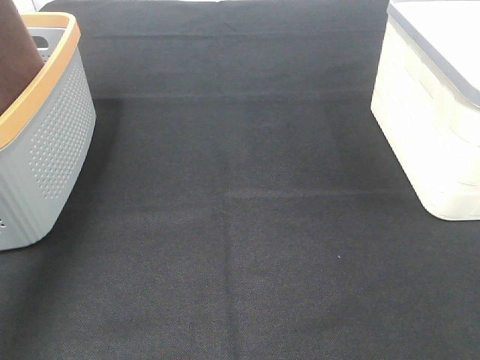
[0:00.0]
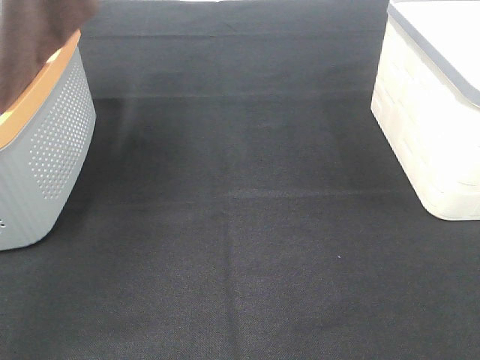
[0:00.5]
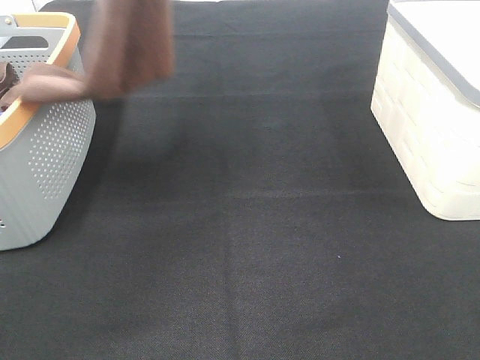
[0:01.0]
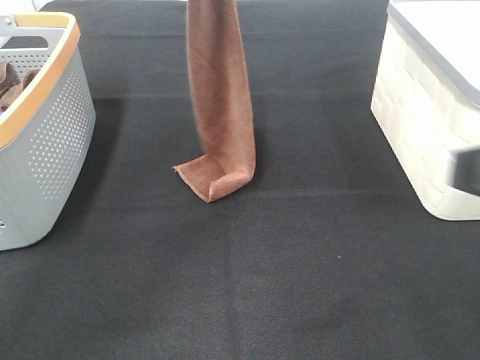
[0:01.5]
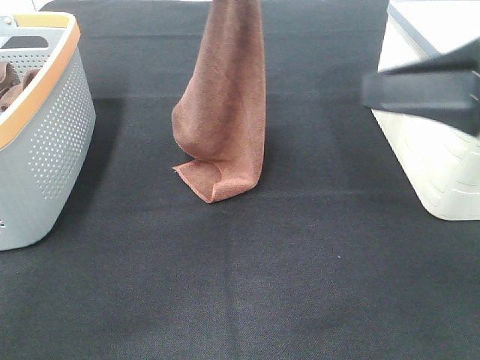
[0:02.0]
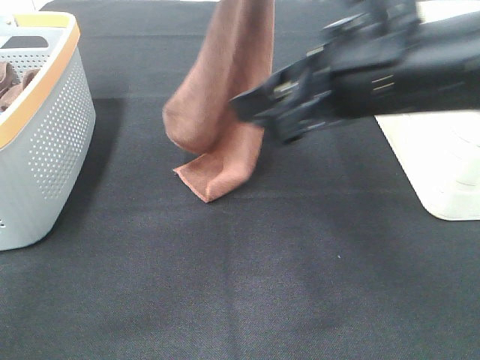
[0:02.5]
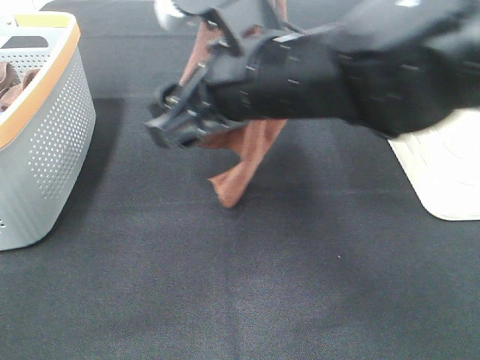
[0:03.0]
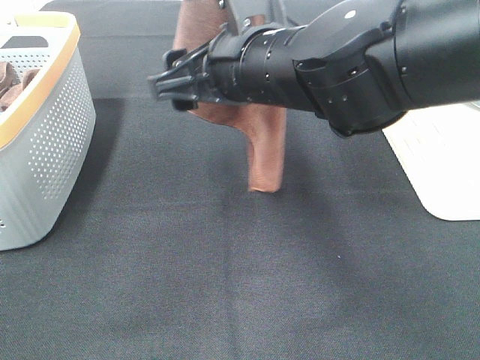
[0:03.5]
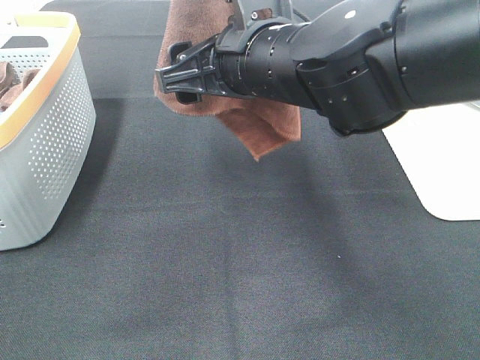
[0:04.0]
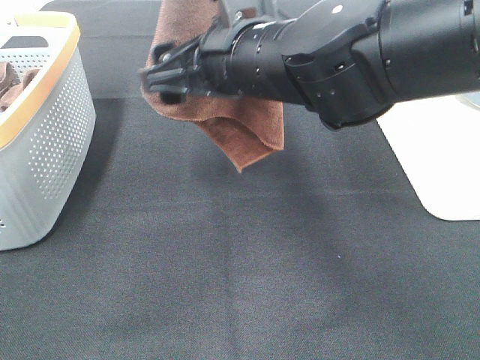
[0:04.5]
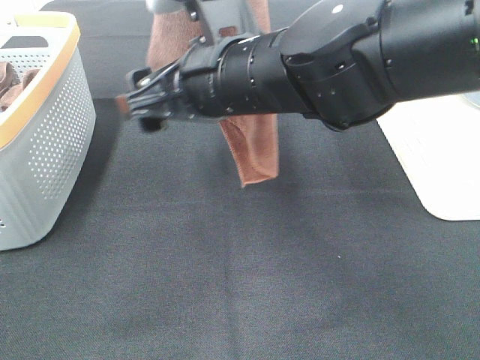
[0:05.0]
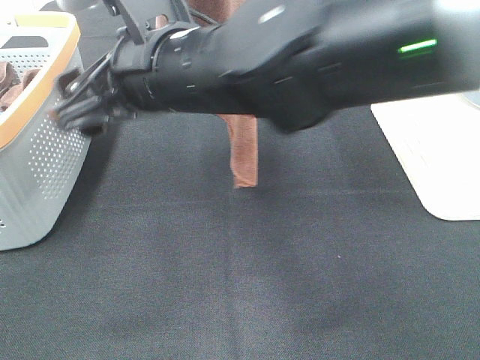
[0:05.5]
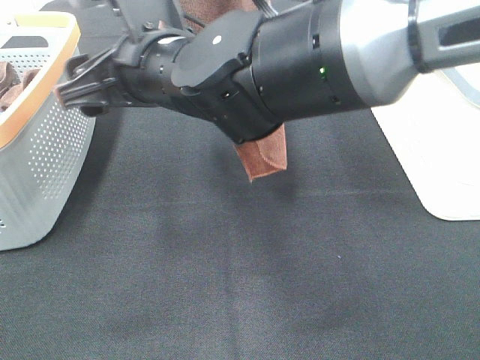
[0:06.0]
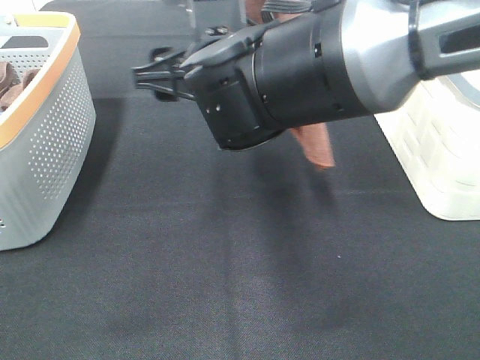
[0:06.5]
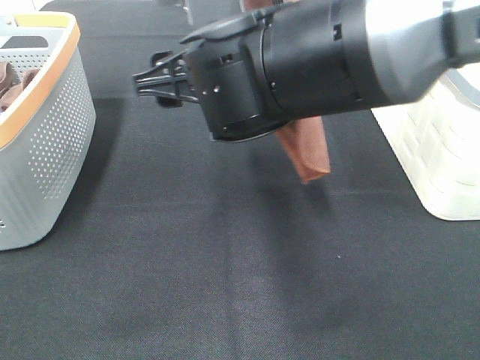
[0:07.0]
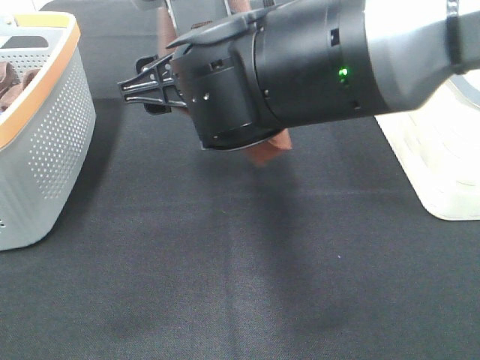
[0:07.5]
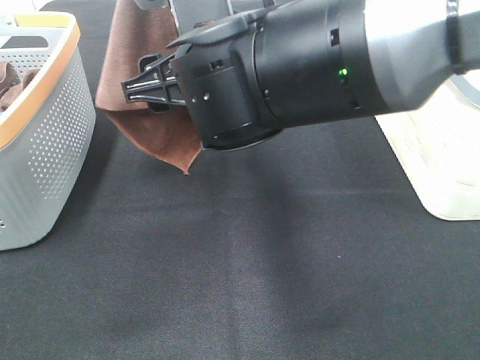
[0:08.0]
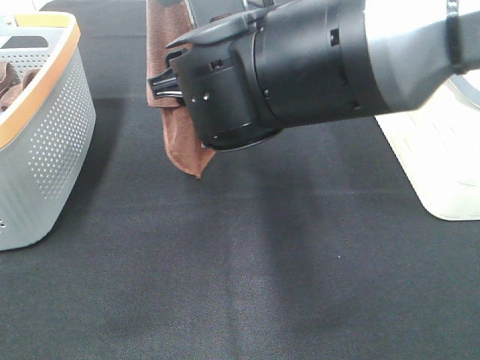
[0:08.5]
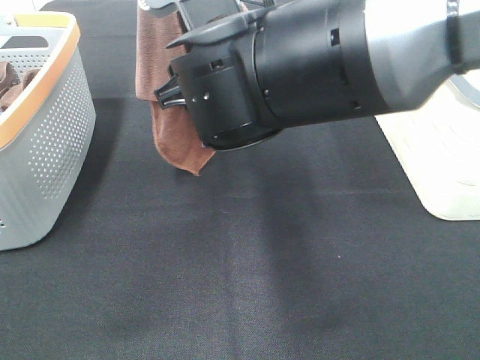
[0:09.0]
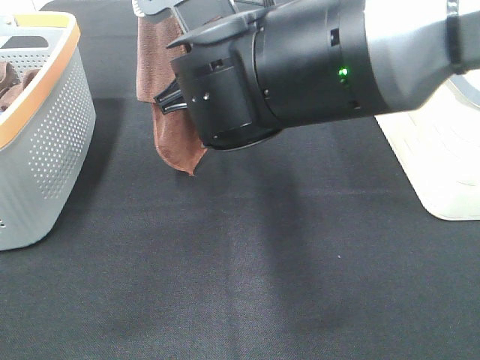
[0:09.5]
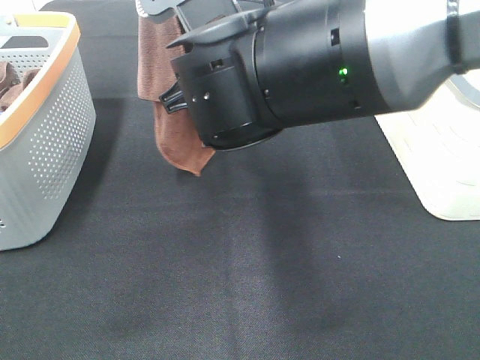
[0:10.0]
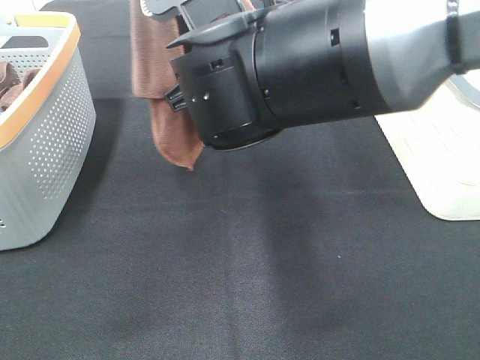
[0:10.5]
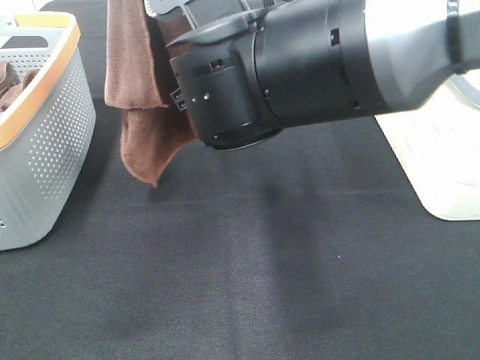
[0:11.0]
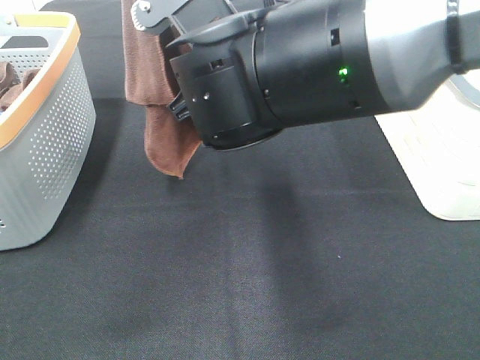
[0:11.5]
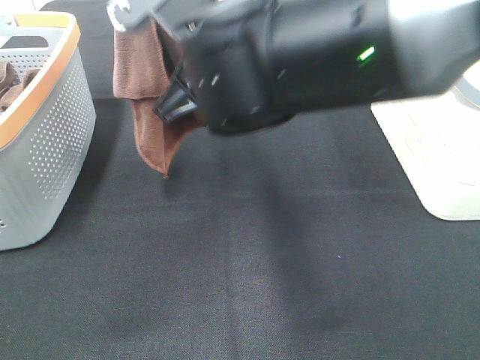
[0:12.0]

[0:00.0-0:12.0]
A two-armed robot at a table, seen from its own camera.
Task of the whole recording: Remove the towel and place it.
Step, 0:00.0 to 0:10.0: Right hand: grab a corner of the brown towel and straighten it.
0:00.0 to 0:02.0: The right gripper is displaced forward by approximately 20 cm. The left gripper moves to the right and downward, about 25 cm.
0:02.0 to 0:04.0: The right gripper heads to the left and forward, covering roughly 20 cm. The left gripper travels upward and backward by about 10 cm.
0:04.0 to 0:06.0: The right gripper goes approximately 10 cm to the left.
0:08.0 to 0:10.0: The grippers make only small movements.
0:10.0 to 0:12.0: The right gripper closes its fingers.

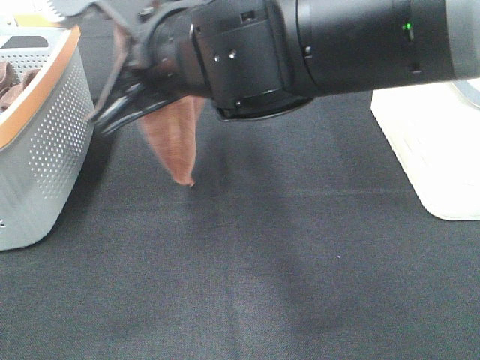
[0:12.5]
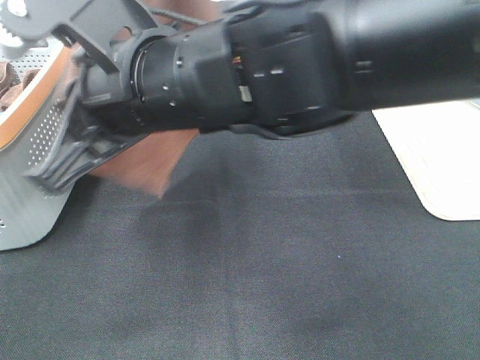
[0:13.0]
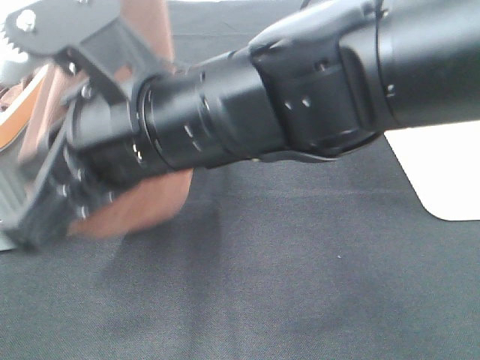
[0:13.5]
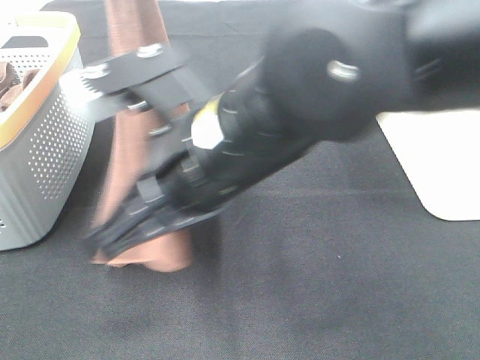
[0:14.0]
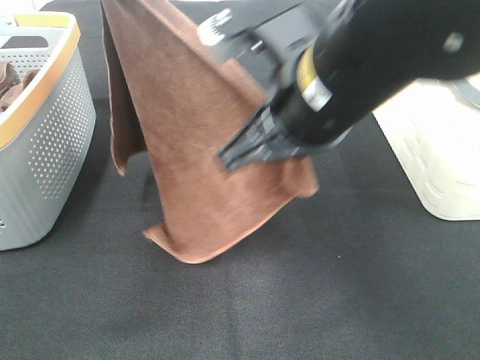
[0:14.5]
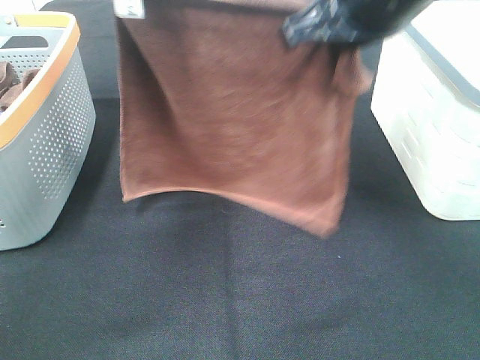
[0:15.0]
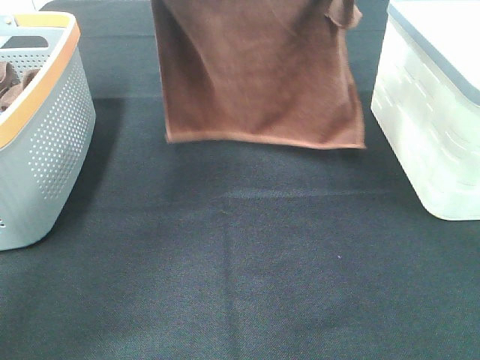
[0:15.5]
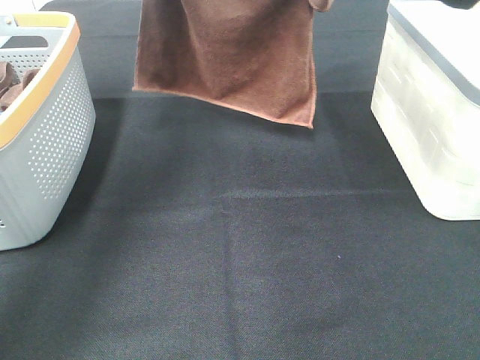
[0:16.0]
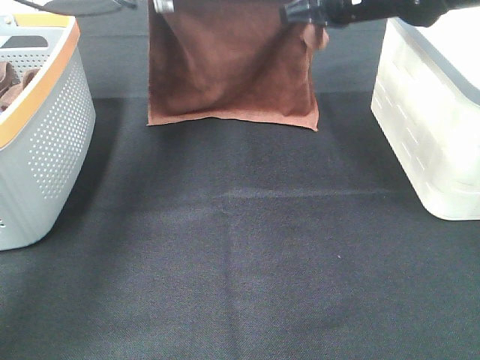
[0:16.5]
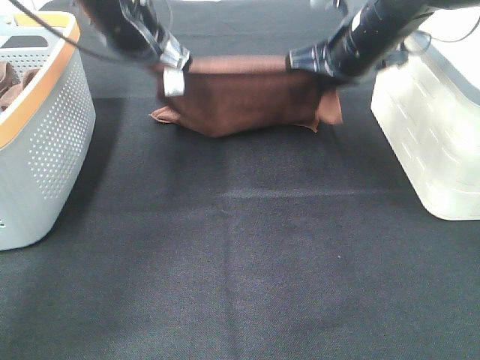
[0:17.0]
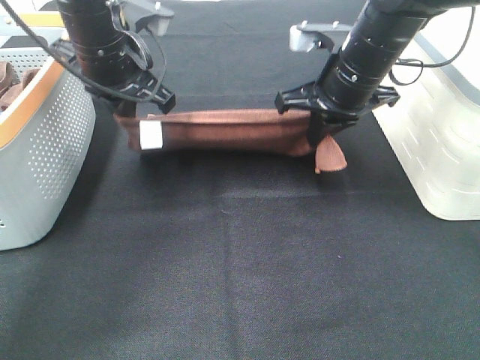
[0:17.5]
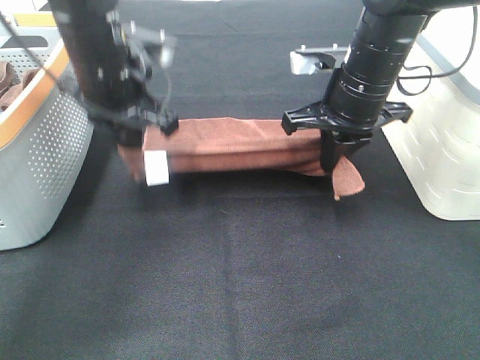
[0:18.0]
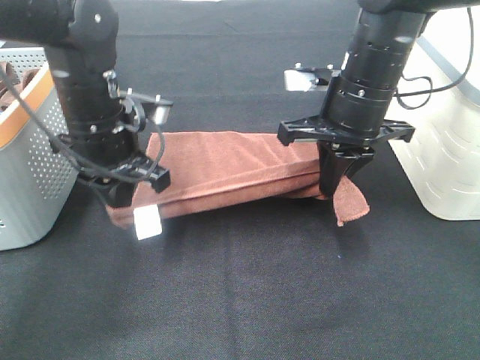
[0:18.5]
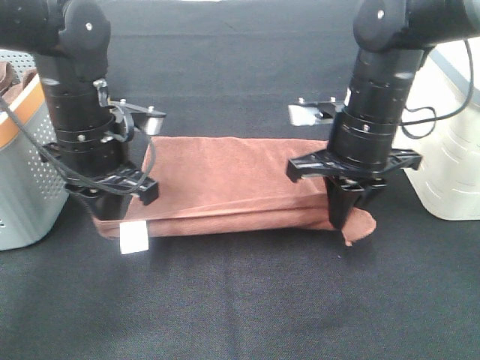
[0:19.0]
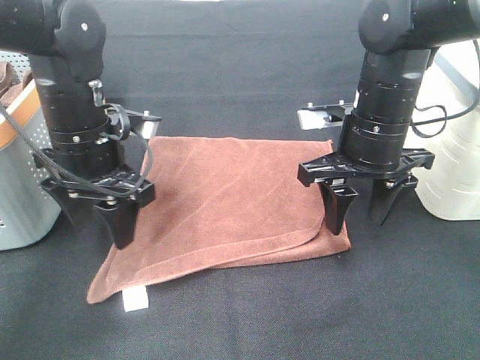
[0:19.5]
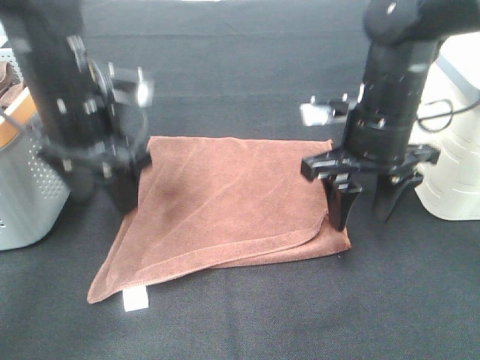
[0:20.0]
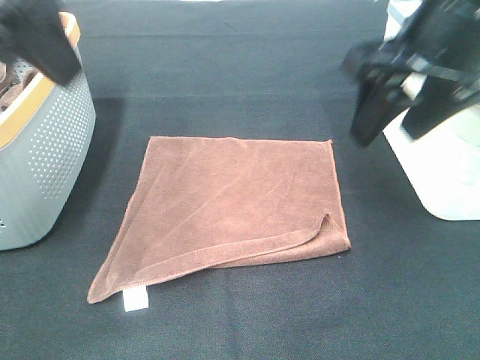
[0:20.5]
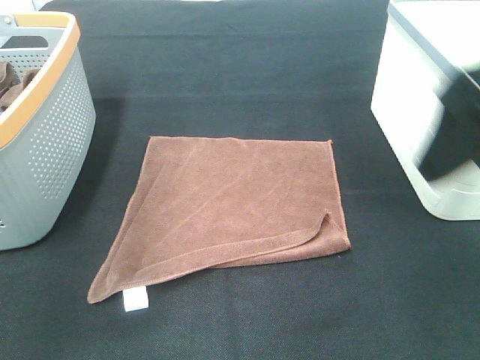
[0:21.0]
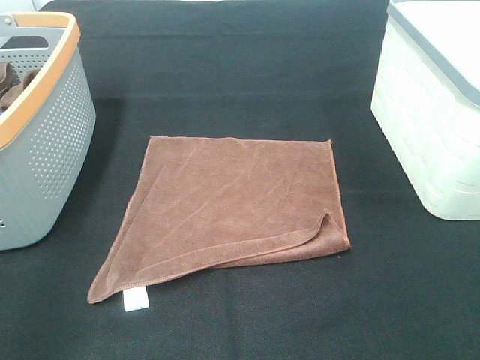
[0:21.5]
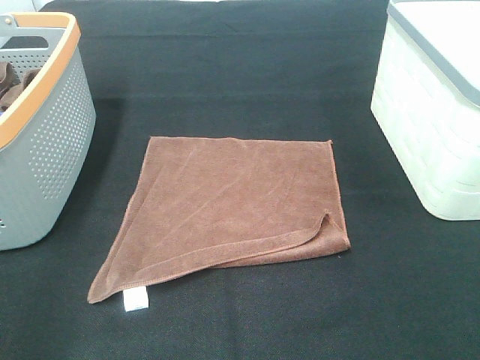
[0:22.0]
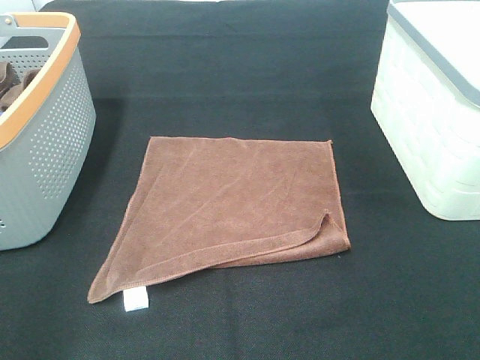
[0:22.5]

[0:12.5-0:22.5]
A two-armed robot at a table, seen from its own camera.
Task of the whole recording: Remove the towel and place it.
0:12.5 to 0:14.5: The right gripper is displaced to the right by approximately 10 cm.
0:14.5 to 0:16.5: The right gripper is displaced forward by some 20 cm; the left gripper goes some 20 cm forward and downward.
0:16.5 to 0:18.5: The right gripper is displaced backward by approximately 10 cm. Meanwhile the left gripper is displaced backward and downward by about 15 cm.
0:18.5 to 0:20.5: The left gripper moves upward and backward, about 25 cm, and opens up. The right gripper is displaced upward and backward by roughly 15 cm, and opens its fingers.
0:20.5 to 0:22.5: The right gripper moves backward and to the right, some 30 cm. The left gripper goes roughly 25 cm backward, downward and to the left.
